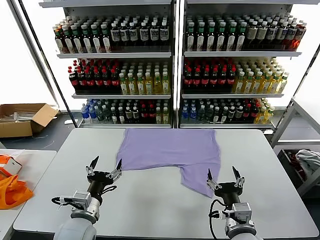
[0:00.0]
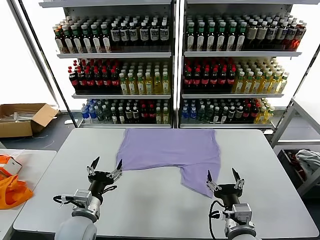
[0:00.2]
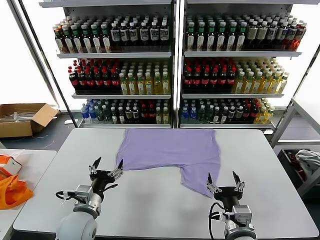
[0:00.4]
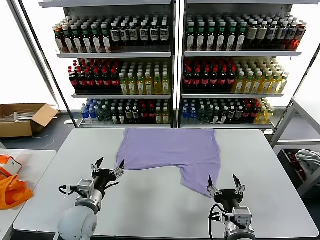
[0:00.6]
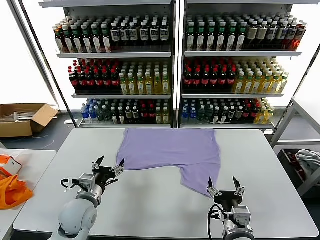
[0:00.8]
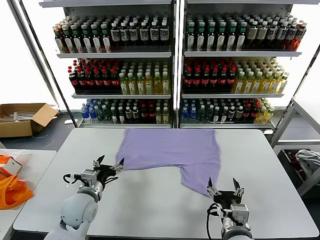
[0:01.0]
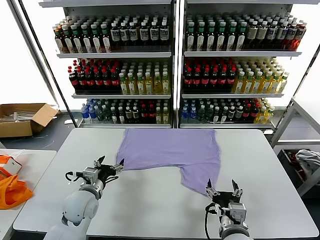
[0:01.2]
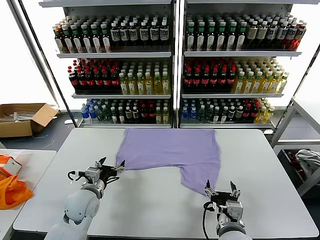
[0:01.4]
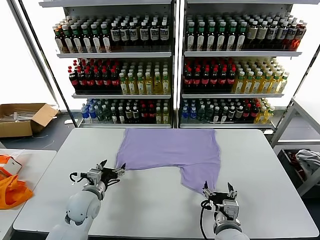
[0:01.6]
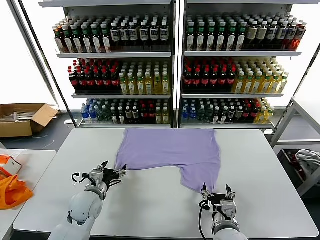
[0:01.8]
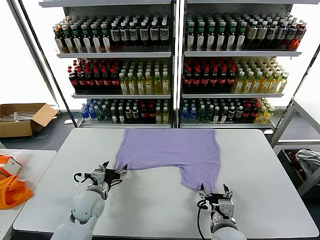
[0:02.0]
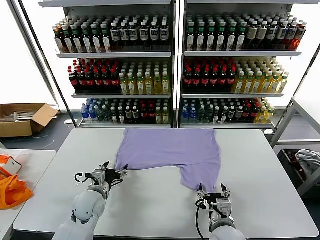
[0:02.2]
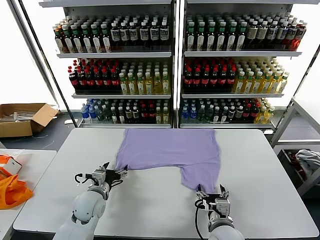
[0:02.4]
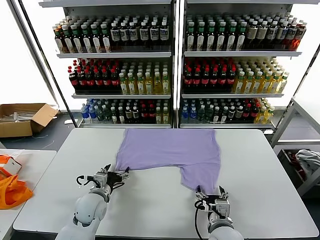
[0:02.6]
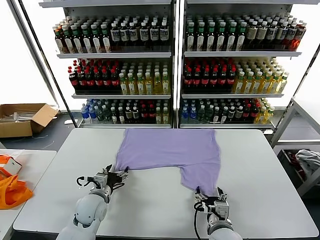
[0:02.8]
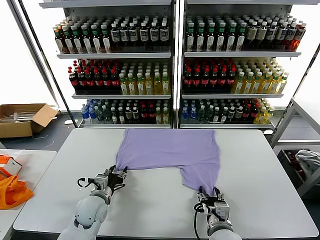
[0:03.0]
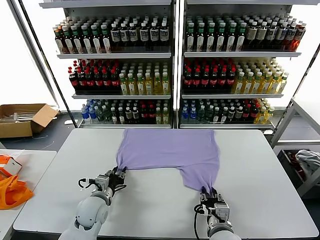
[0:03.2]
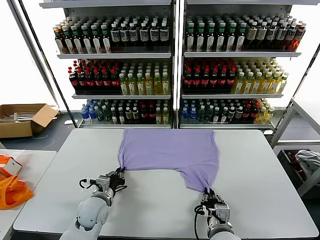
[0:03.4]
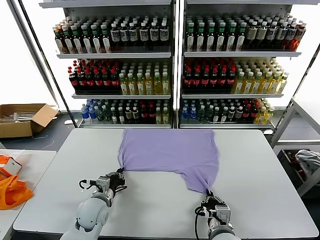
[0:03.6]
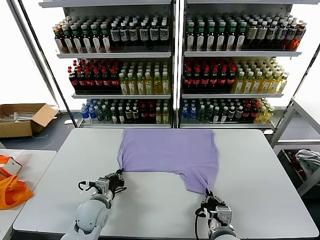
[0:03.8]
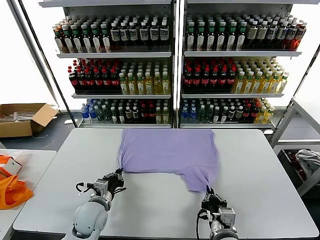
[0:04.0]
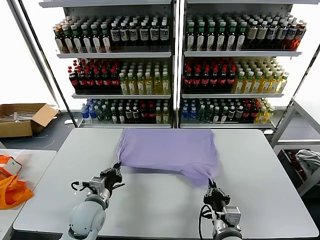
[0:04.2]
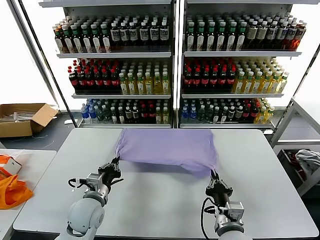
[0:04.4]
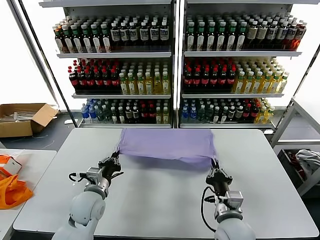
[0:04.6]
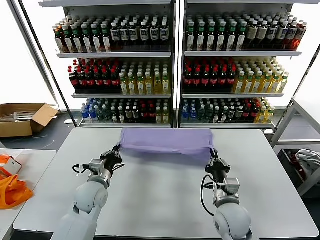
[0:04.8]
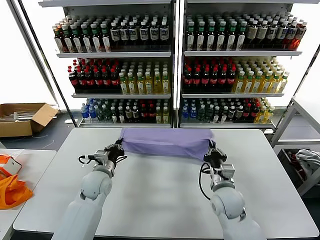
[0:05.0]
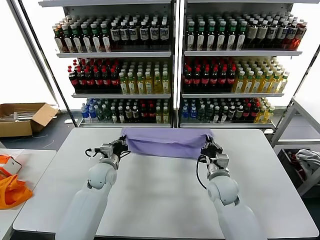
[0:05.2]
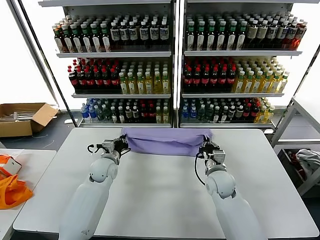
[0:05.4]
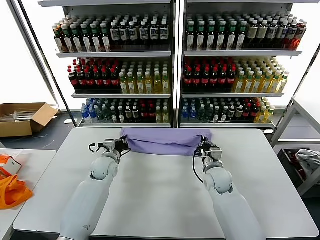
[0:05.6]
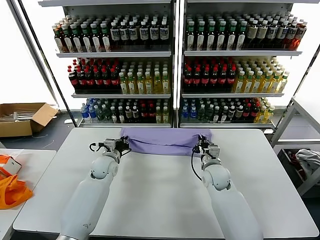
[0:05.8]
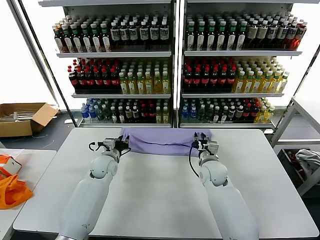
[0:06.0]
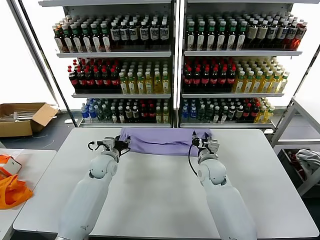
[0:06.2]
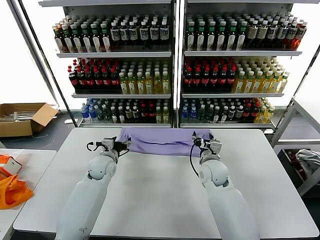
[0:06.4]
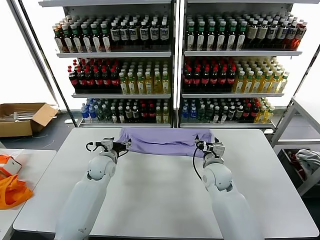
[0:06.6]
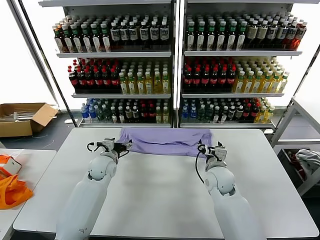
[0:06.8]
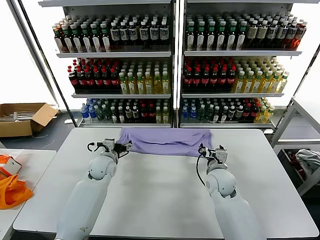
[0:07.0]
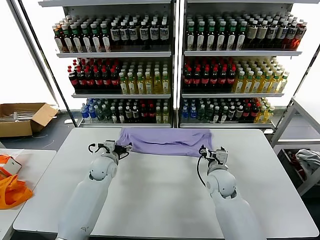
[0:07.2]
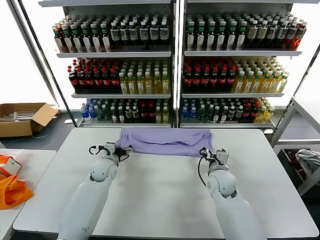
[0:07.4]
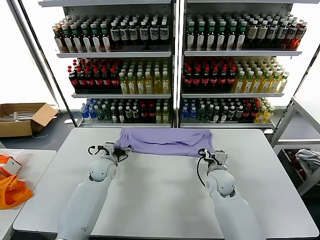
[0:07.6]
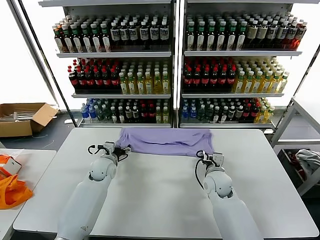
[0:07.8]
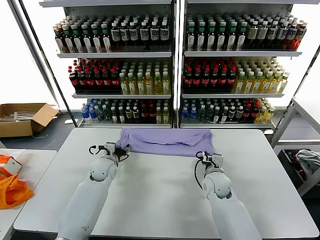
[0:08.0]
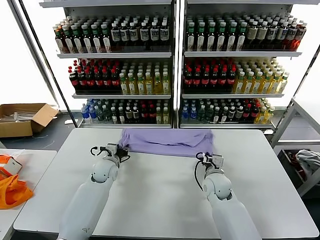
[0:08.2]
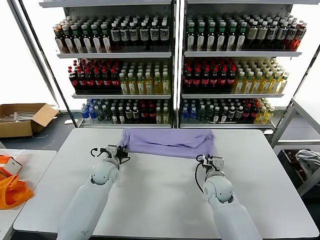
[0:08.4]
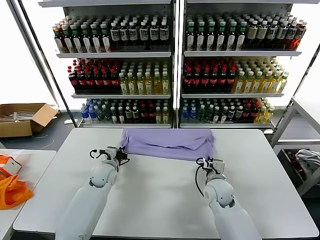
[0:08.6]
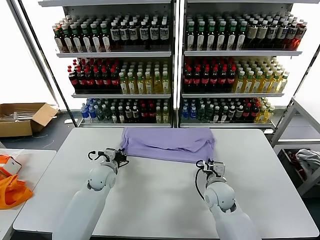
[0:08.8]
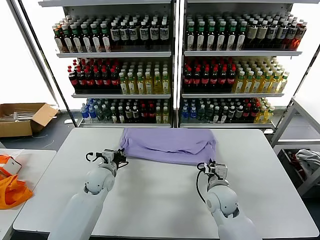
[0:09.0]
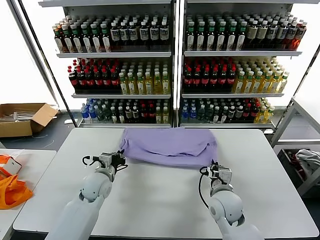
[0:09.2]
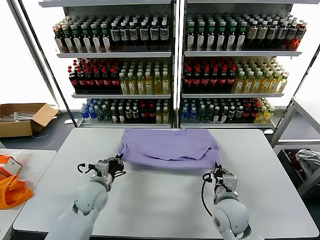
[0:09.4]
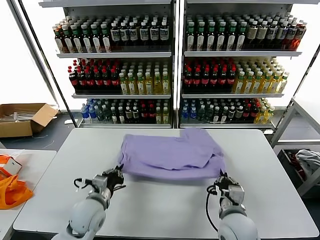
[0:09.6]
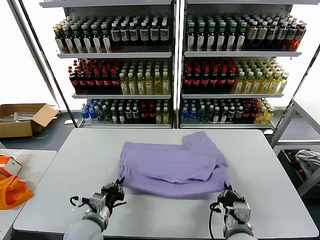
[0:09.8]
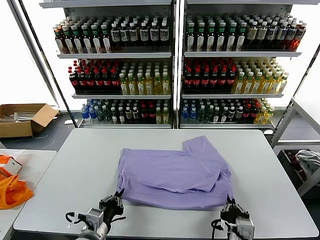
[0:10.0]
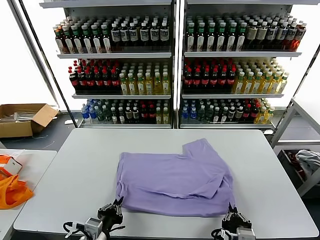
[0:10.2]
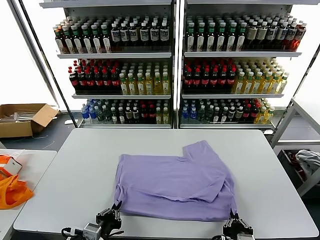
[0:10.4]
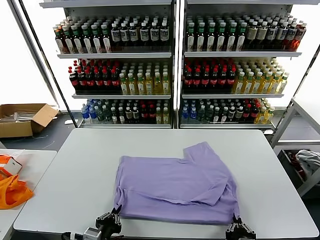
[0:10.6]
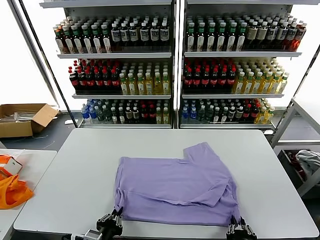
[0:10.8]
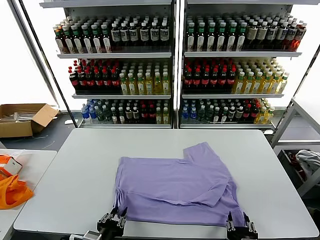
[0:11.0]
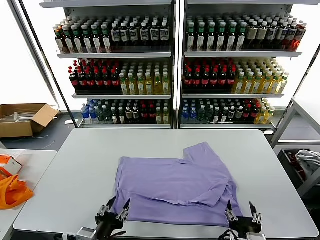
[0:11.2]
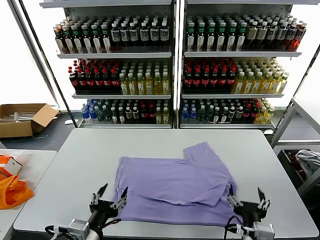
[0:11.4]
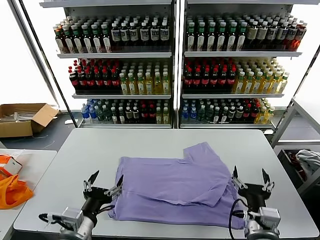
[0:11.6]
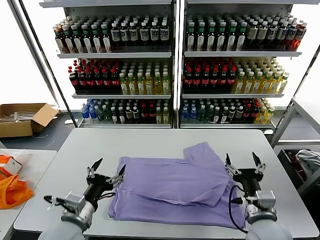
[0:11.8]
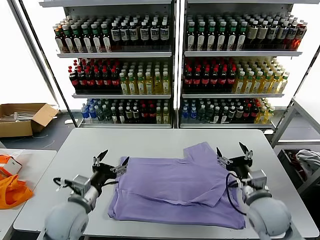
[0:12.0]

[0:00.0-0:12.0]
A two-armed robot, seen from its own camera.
Task of the whole recording: fold and organize the clothes.
Step, 0.0 to 3.6 s: use both grippers simultaneously to clamp the lower edge of the clothing fabric.
Step, 3.8 to 5.8 s: use both grippers to drag the lower edge of the fabric forward and fold it over the upper edge.
Step, 6.0 to 11.0 s: Drag the clothes downward with both gripper.
1.6 to 3.0 s: The left gripper closes up. The right gripper closes.
3.0 to 4.4 s: The left gripper ends up roughly 5 cm from where it was, and closes, while the right gripper closes up.
4.4 to 6.0 s: The grippers both shift forward by about 20 cm. The left gripper opens its fingers. The right gripper opens its fingers.
6.0 to 7.6 s: The right gripper opens its fingers. Meanwhile the left gripper opens its fingers.
7.6 to 9.0 s: The two grippers go roughly 5 cm backward. The right gripper closes up. Meanwhile the left gripper closes up.
9.0 to 10.4 s: Both grippers move backward, approximately 25 cm.
10.4 to 12.0 s: The left gripper heads forward and upward, covering about 15 cm, and opens its fingers, while the right gripper goes approximately 20 cm forward and to the right, and opens.

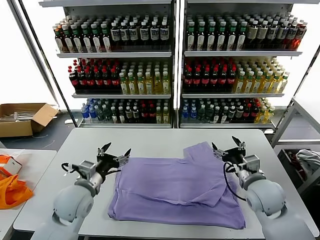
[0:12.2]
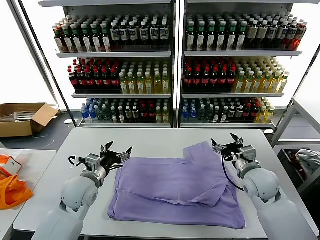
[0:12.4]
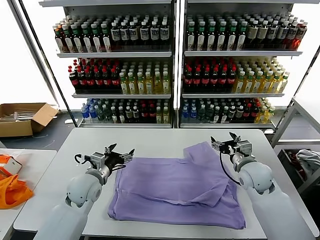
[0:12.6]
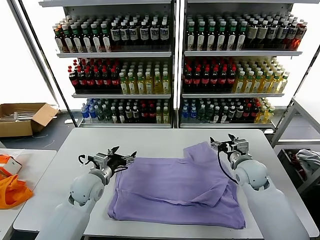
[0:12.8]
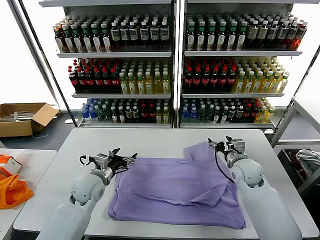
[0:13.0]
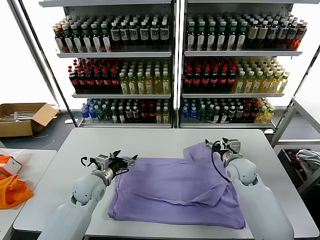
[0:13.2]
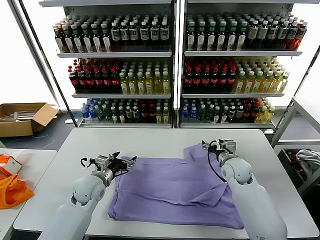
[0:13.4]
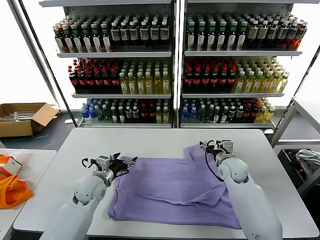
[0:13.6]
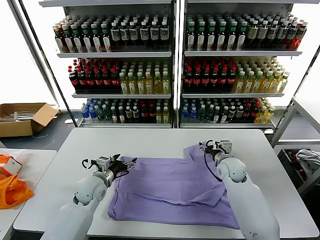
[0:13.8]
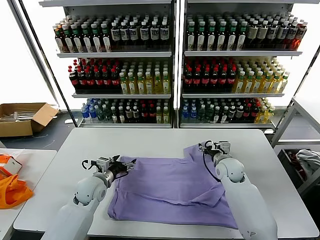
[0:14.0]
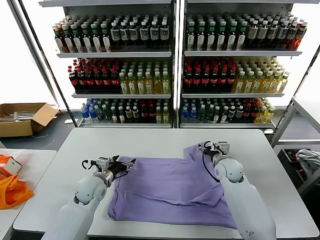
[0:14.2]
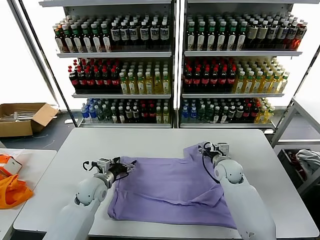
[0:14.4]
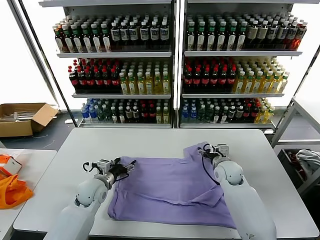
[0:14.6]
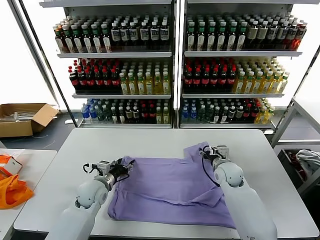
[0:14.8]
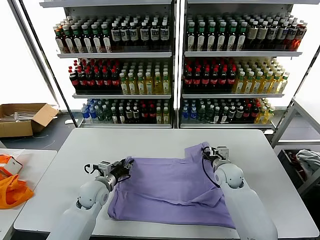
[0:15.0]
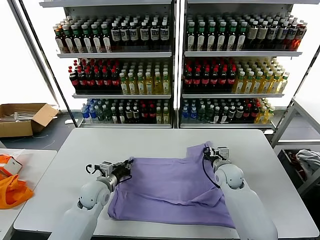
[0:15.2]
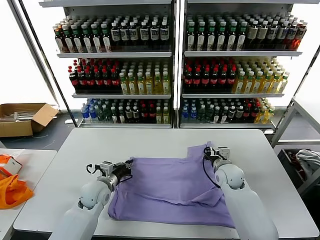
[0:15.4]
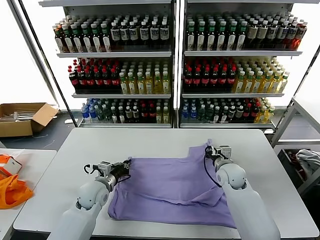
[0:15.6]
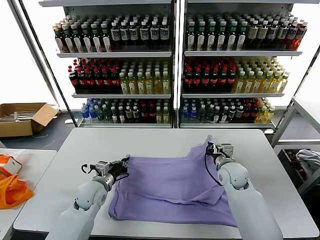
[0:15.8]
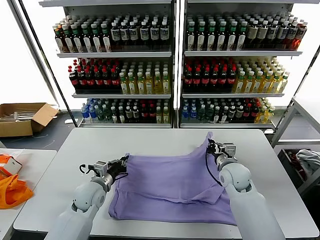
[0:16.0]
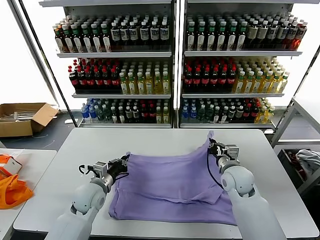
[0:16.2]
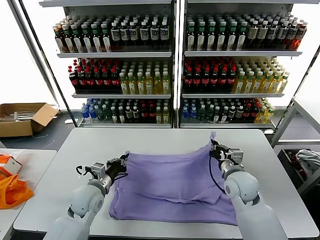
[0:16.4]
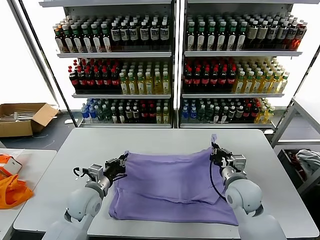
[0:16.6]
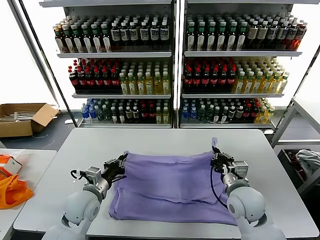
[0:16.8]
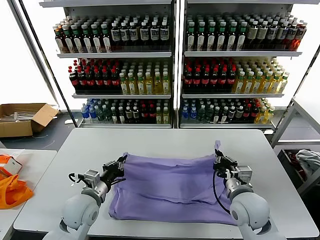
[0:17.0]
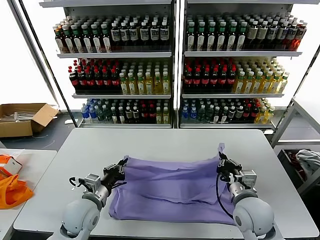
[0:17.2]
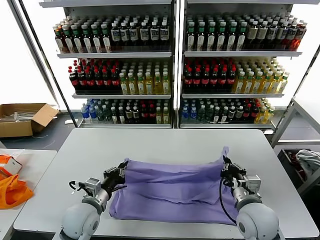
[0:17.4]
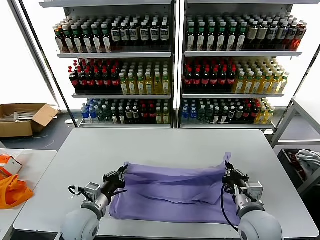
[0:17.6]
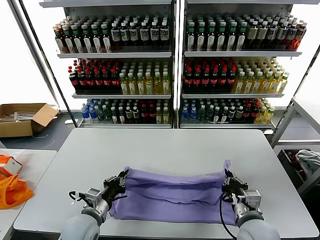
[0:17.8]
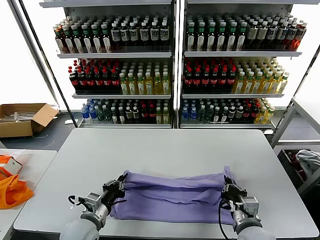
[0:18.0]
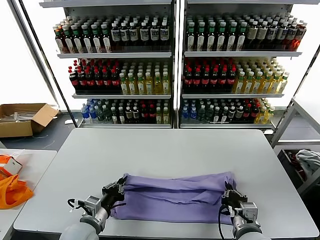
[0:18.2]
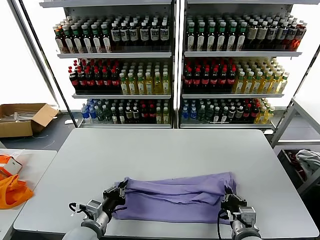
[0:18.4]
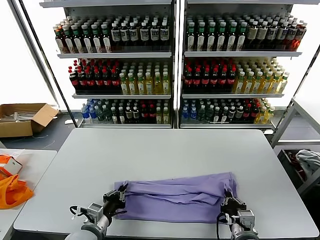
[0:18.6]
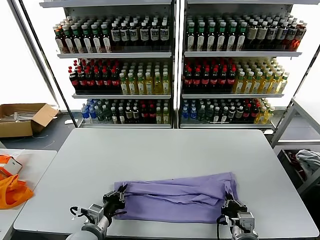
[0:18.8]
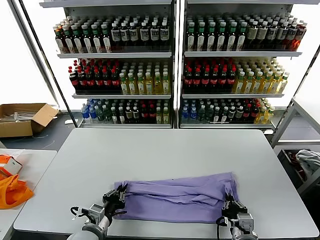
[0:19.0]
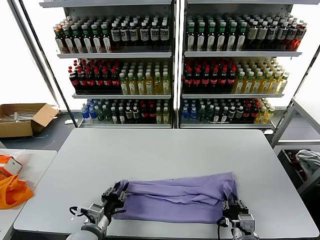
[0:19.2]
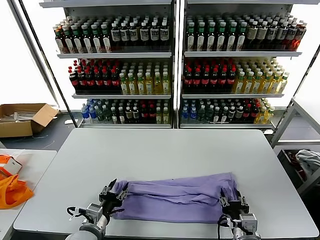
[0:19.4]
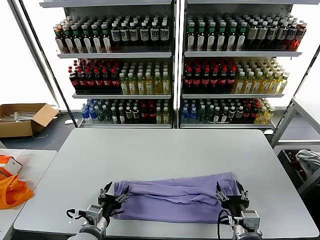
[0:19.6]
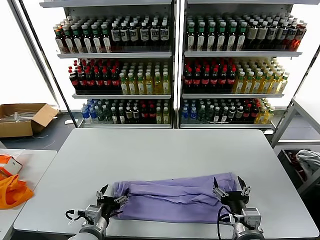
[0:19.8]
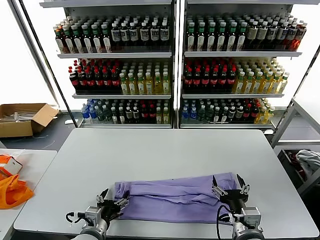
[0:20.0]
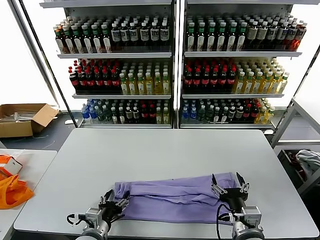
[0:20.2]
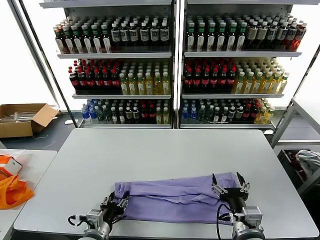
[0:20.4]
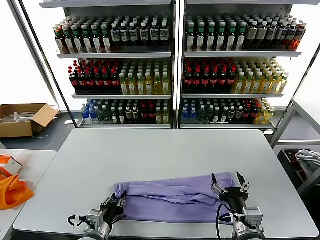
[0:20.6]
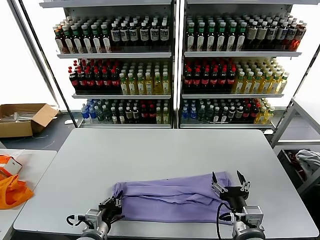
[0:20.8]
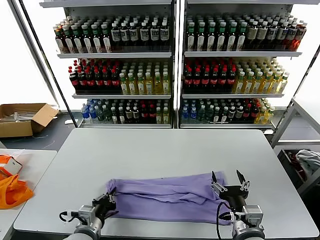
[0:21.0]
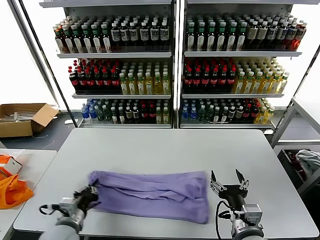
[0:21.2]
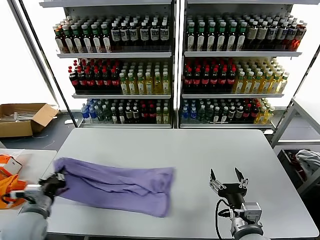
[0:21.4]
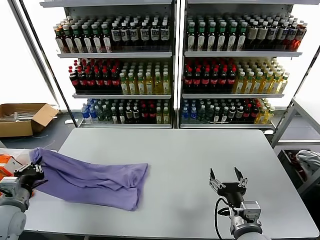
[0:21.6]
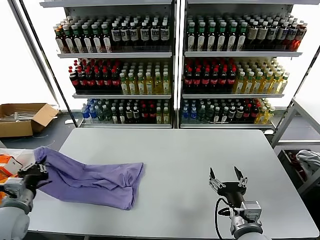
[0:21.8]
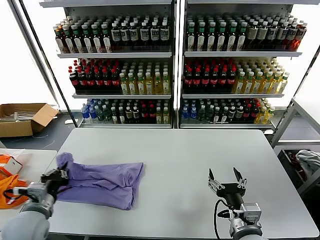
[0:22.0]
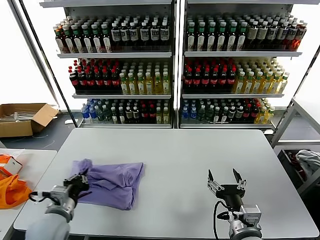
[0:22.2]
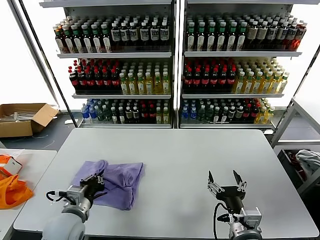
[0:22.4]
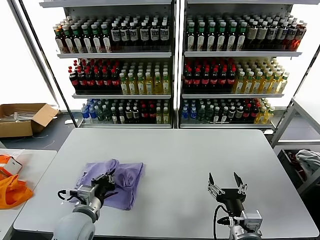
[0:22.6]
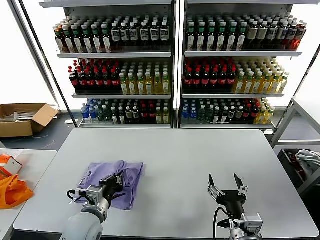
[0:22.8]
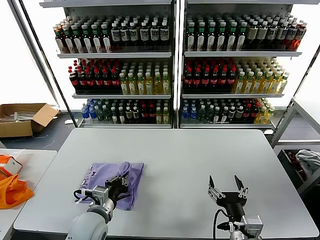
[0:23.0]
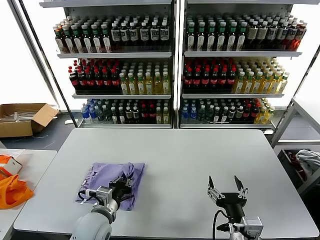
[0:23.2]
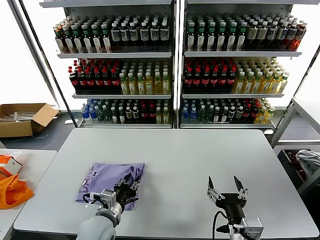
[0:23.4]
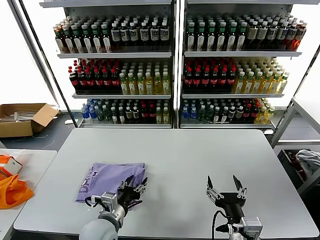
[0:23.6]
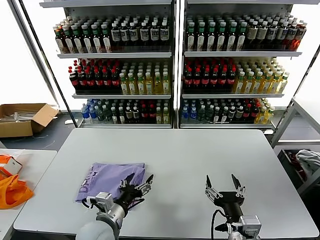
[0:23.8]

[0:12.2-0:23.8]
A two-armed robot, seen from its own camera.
Task of the whole recording: fold and organize the clothes.
Step, 12.2 to 15.2 s: use both grippers simultaneously to clamp the upper edge of the clothing fabric.
Step, 15.4 to 19.2 s: use both grippers to drag the upper edge of the fabric backward and fold it over the lower edge.
Step, 19.6 to 20.8 s: use the left gripper to clamp the left edge of the fabric.
Step, 21.0 to 23.6 s: use the left gripper to drag the left edge of the fabric to the left and folds it over the right edge.
12.2 to 13.6 s: Both grippers travel together forward and downward, roughly 10 cm.
13.6 to 15.0 s: The right gripper closes. The left gripper closes its fingers.
15.0 to 16.6 s: The right gripper moves backward and upward, about 15 cm, and closes; the left gripper moves some 5 cm, and closes up.
16.6 to 18.0 s: The two grippers go about 10 cm backward.
18.0 to 19.4 s: The right gripper opens up. The left gripper opens its fingers.
19.4 to 21.0 s: The left gripper closes up, while the right gripper ends up some 5 cm from where it was, and opens up.
21.0 to 22.4 s: The left gripper reaches about 20 cm to the left, then returns.
22.4 to 23.8 s: The left gripper goes roughly 10 cm to the right, and opens its fingers.
